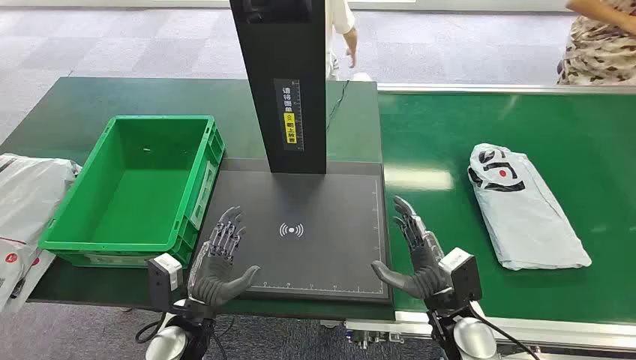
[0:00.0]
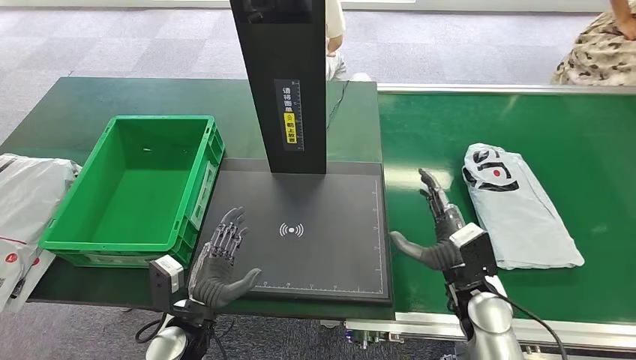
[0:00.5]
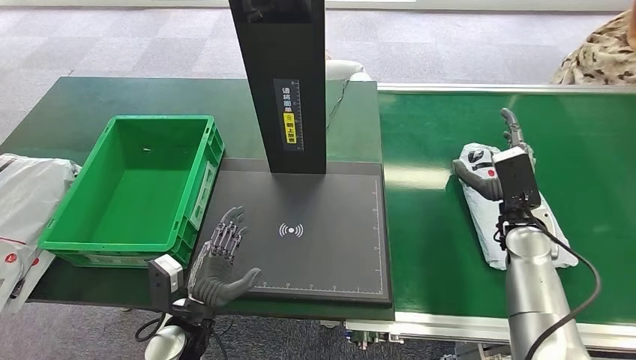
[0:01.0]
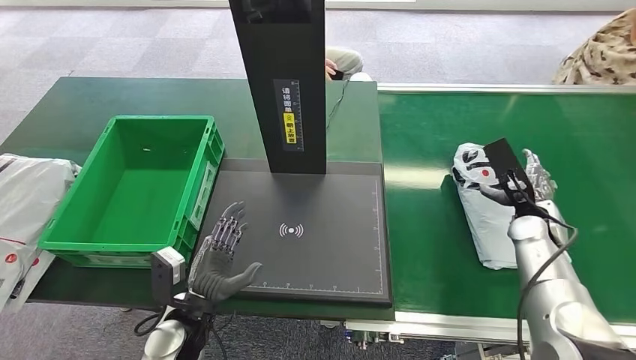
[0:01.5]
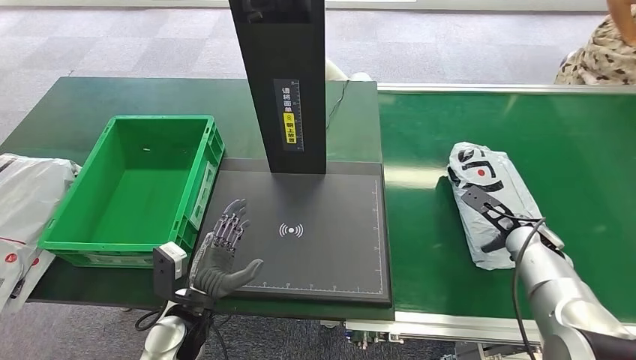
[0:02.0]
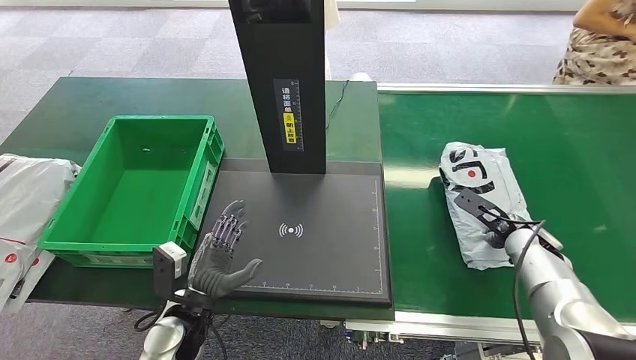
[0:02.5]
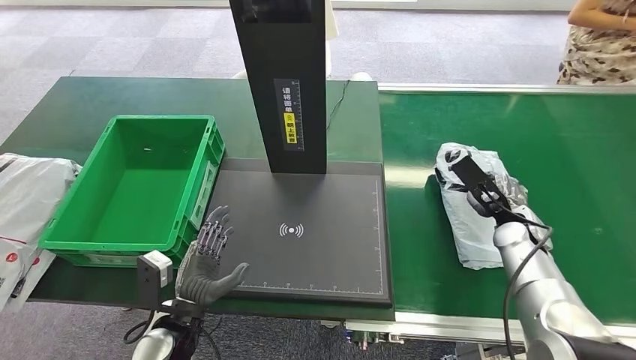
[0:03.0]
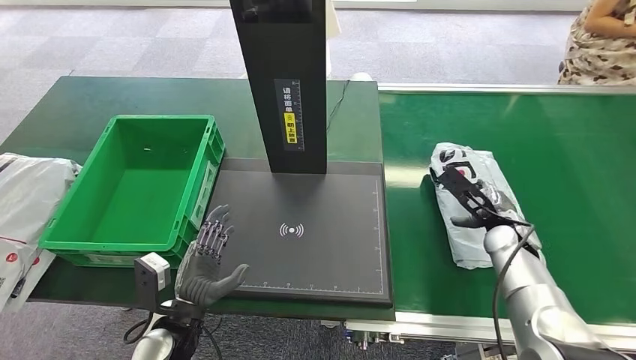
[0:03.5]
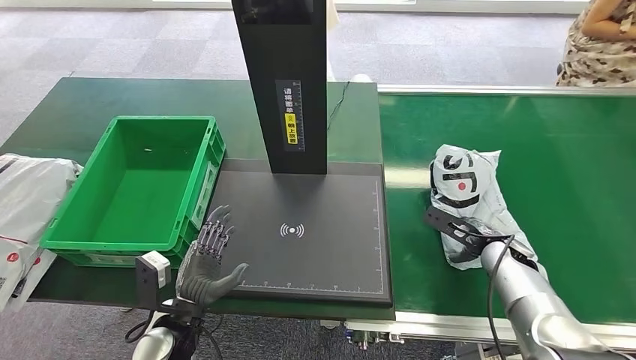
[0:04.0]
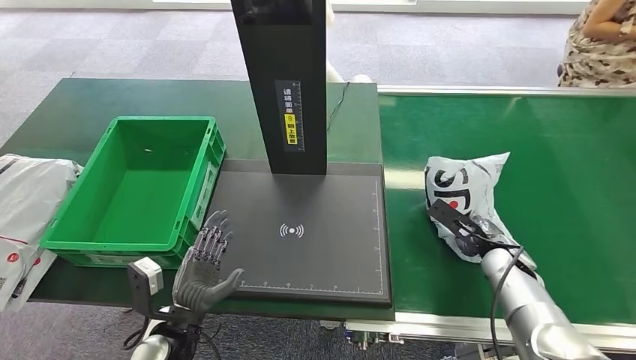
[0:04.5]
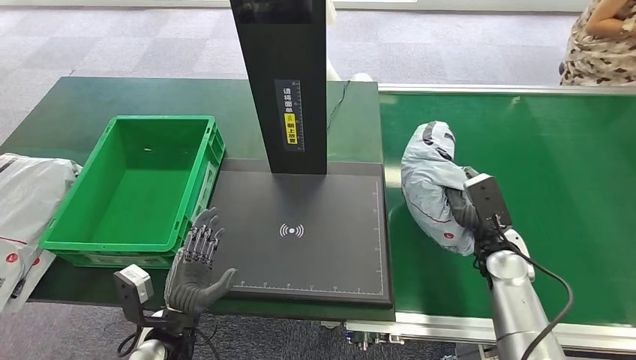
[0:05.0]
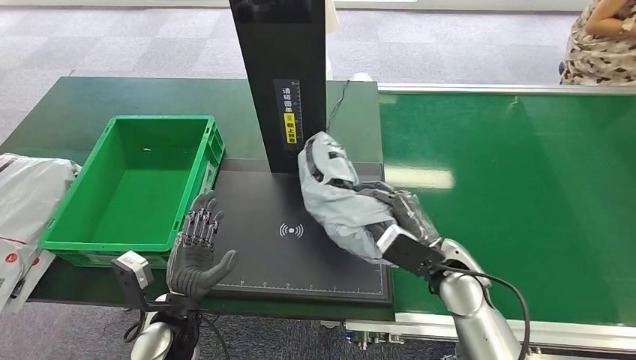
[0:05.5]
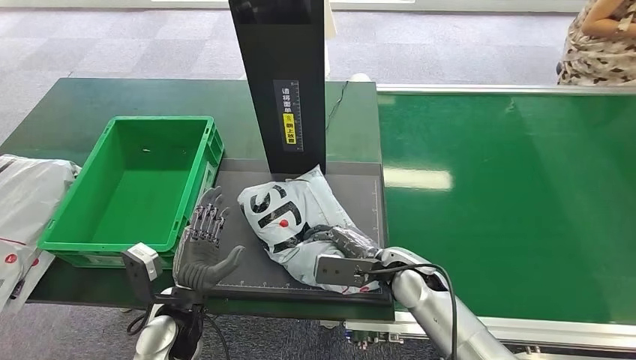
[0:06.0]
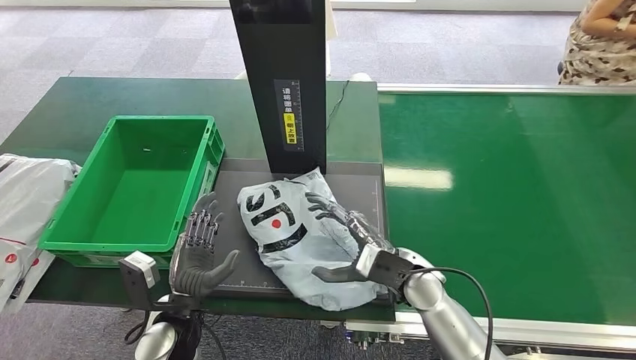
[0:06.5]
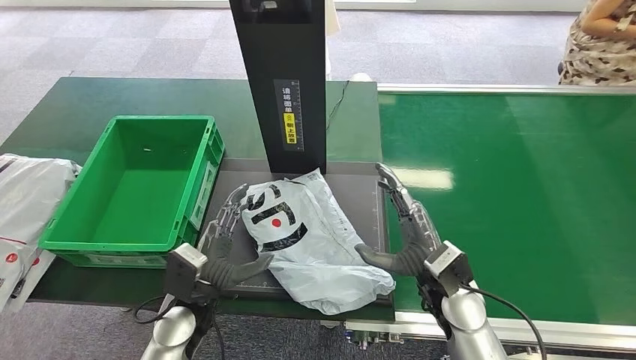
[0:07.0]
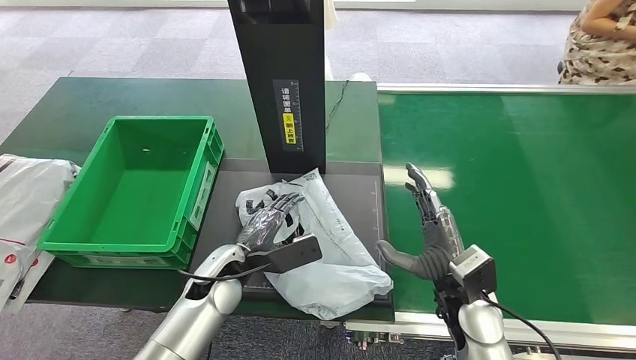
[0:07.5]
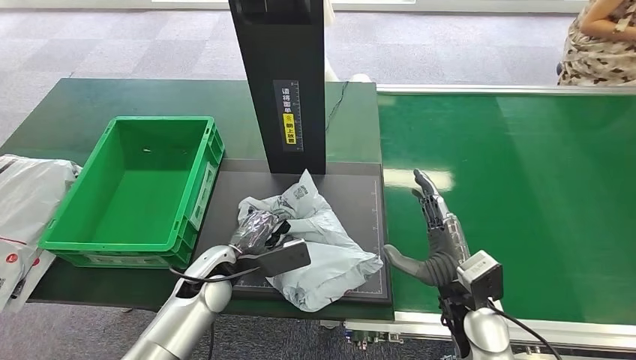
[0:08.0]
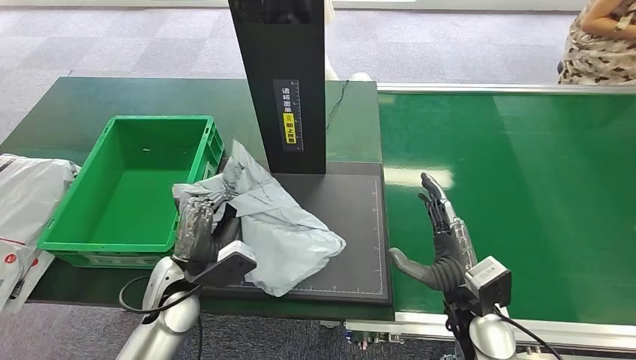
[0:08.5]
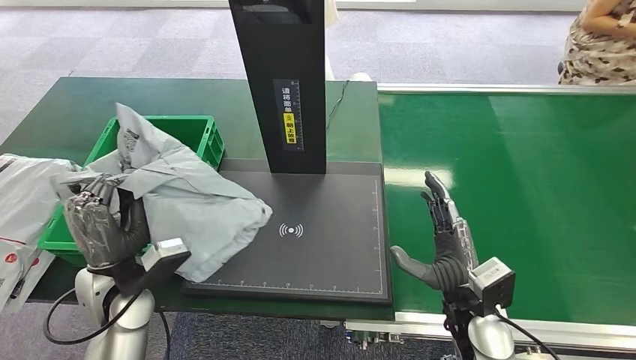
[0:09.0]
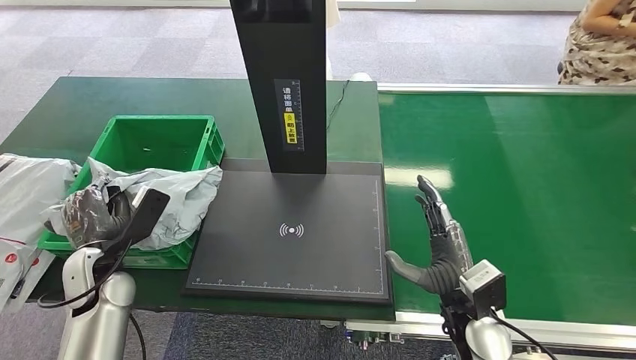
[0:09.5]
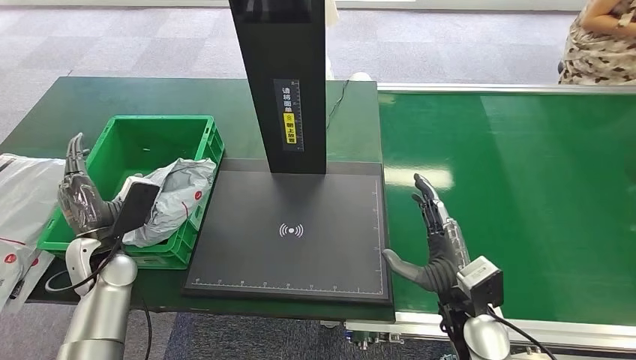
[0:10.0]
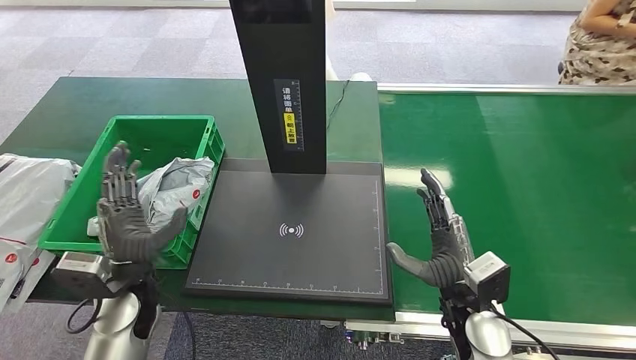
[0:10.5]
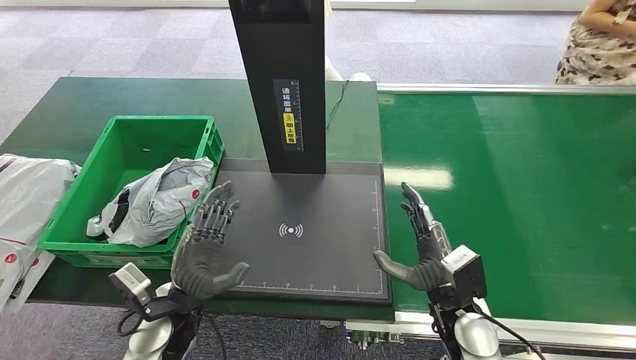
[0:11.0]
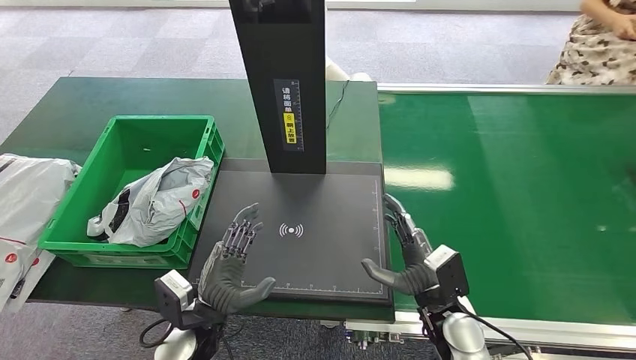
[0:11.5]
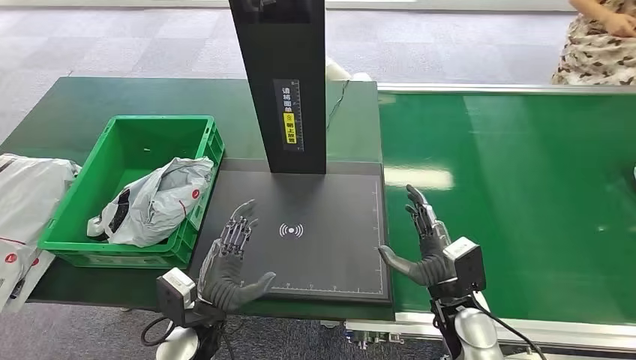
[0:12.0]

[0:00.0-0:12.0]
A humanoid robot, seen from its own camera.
Task of the whole recording: Weigh the package on the weighing device and place it in the left basket.
Step, 0:00.0 to 0:04.5: Pick up the package from the conveyor belt.
Step, 0:05.0 to 0:06.5: Place the package onto the inbound machine.
Step, 0:07.5 to 0:08.5: Pick up the package from the inbound machine.
Step, 0:09.0 to 0:11.5: Place the package into the parcel locker.
0:02.0 to 0:04.0: The right hand moves some 5 cm.
0:06.0 to 0:08.0: The left hand moves forward, some 10 cm; the right hand goes roughly 10 cm to the right and backward.
0:10.0 to 0:12.0: The left hand heads to the right and backward, covering roughly 20 cm.

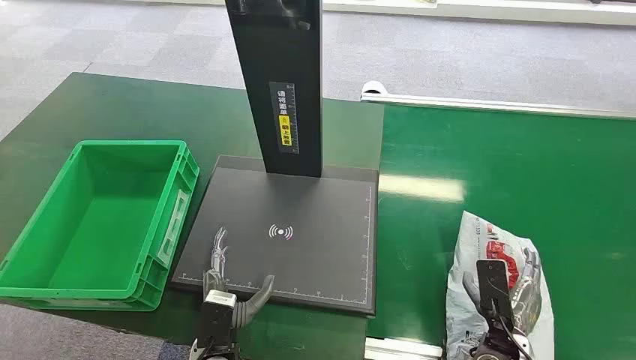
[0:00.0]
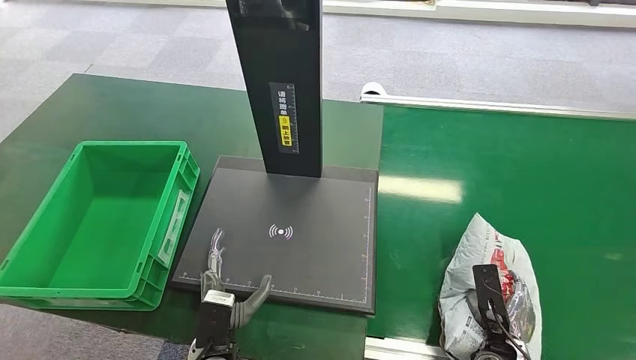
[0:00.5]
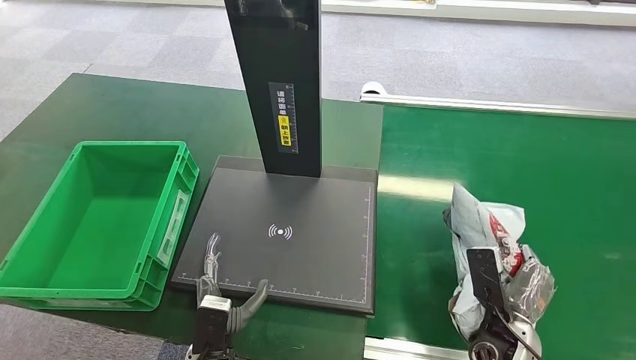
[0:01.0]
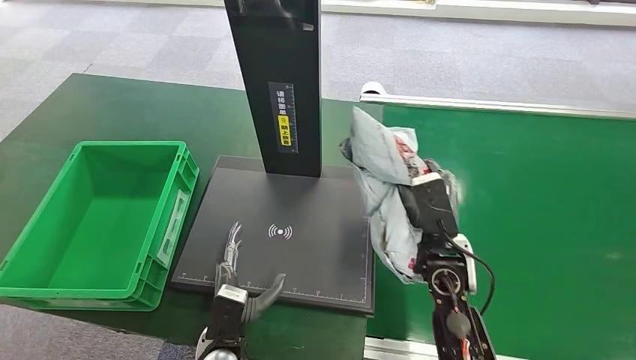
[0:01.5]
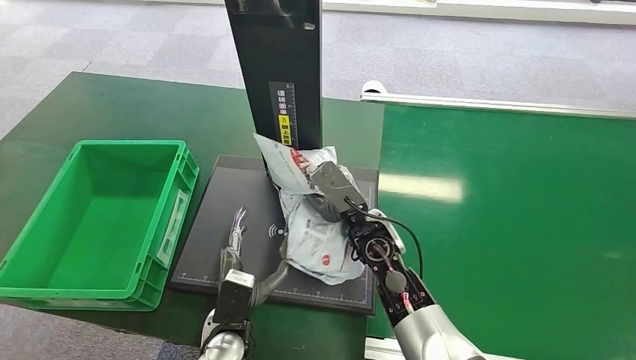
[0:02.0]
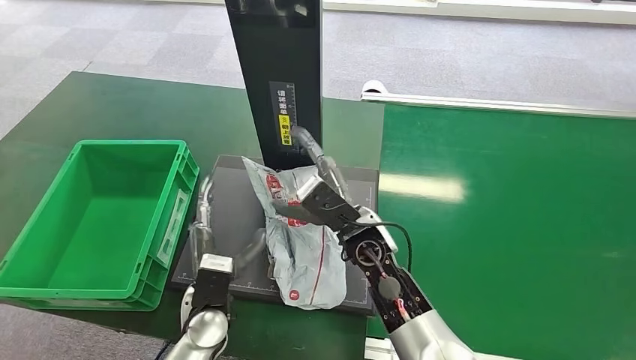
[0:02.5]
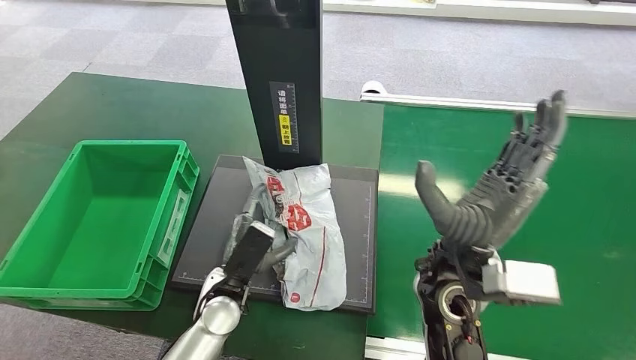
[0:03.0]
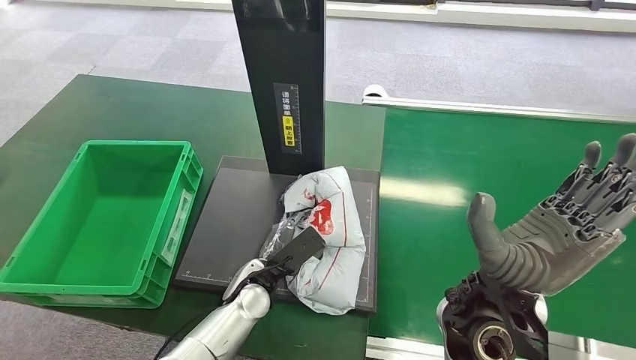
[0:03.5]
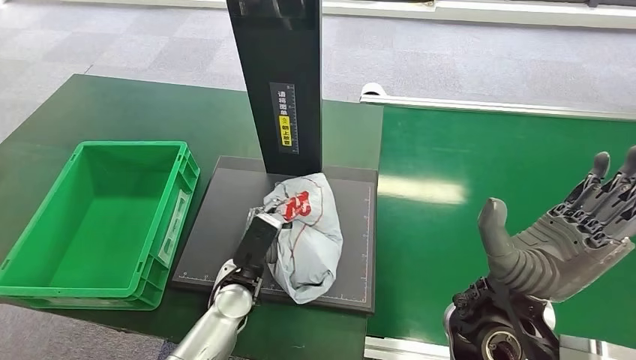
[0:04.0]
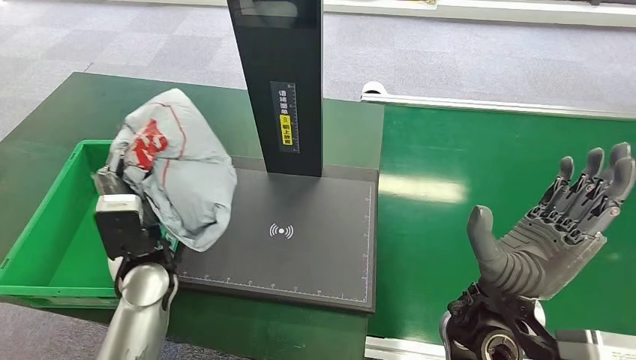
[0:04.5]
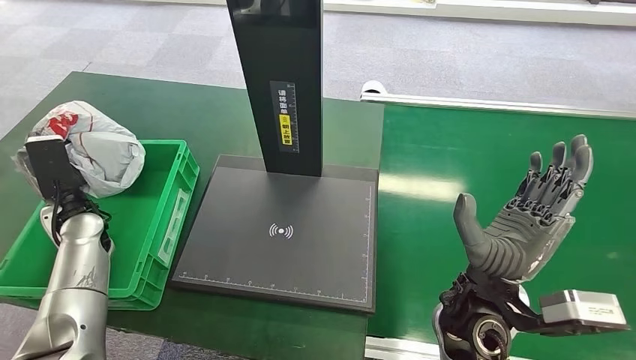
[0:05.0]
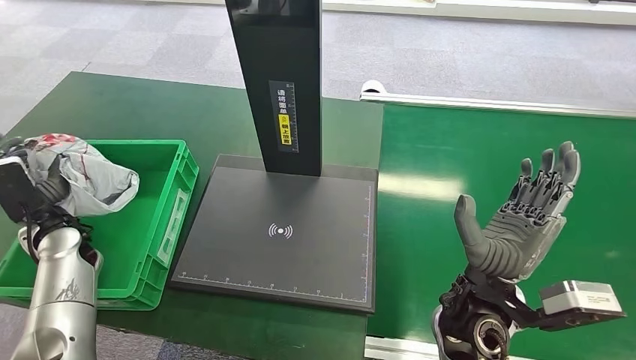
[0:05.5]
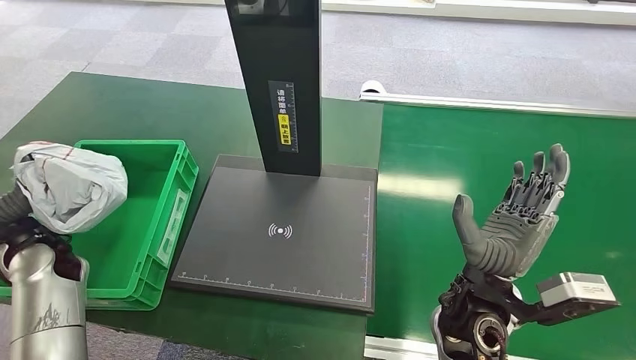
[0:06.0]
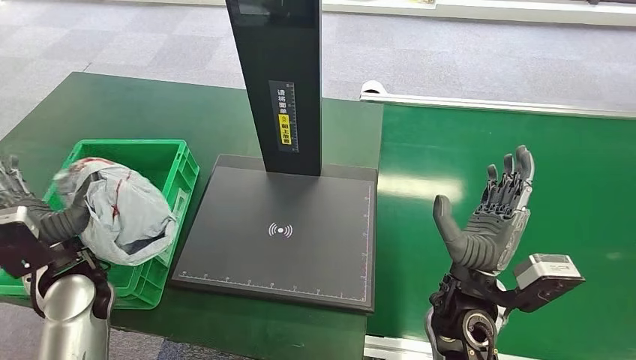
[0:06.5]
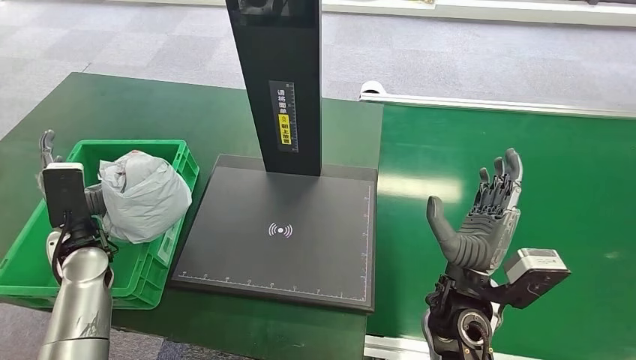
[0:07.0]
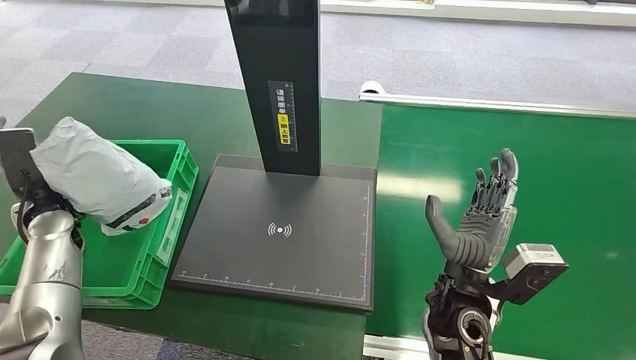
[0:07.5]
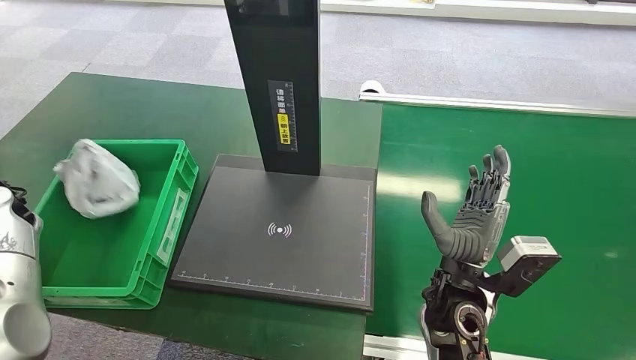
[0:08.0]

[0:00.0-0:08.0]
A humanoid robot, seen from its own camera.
Task of the whole recording: Weigh the package on the weighing device and place it in the left basket.
Step, 0:00.0 to 0:01.0: Pick up the package from the conveyor belt.
Step, 0:01.5 to 0:02.5: Place the package onto the inbound machine.
Step, 0:03.0 to 0:04.0: Pick up the package from the inbound machine.
Step, 0:04.5 to 0:08.0: Place the package into the parcel locker.
0:06.0 to 0:08.0: The left hand moves to the left and forward, some 10 cm.
